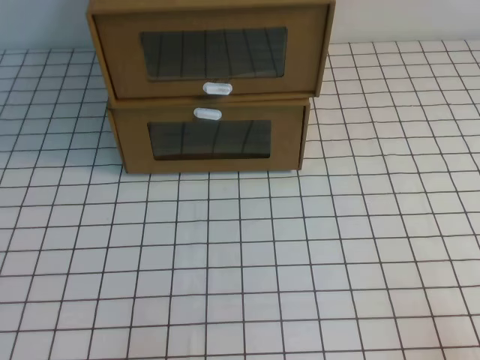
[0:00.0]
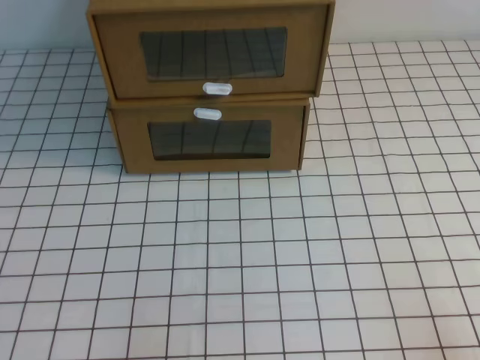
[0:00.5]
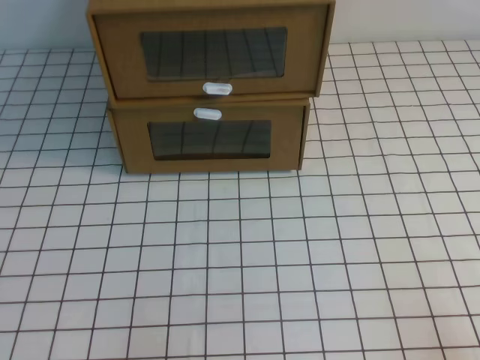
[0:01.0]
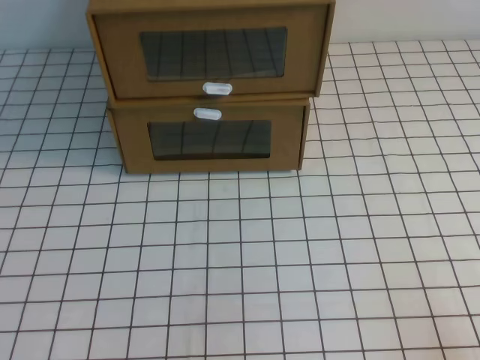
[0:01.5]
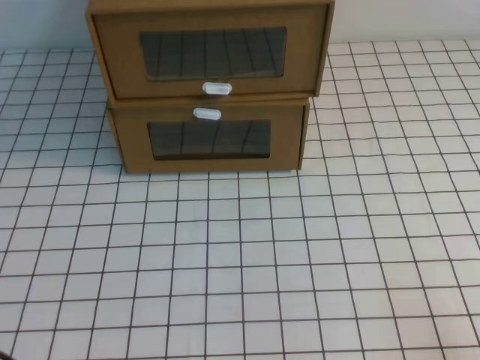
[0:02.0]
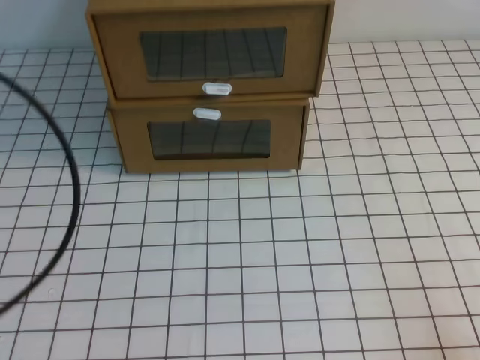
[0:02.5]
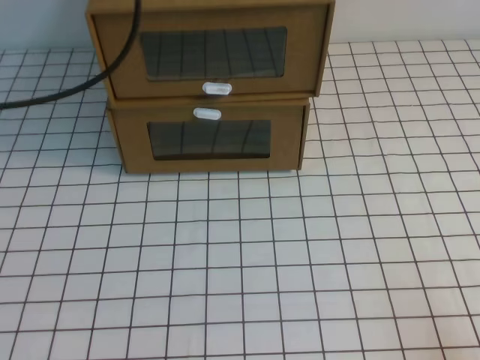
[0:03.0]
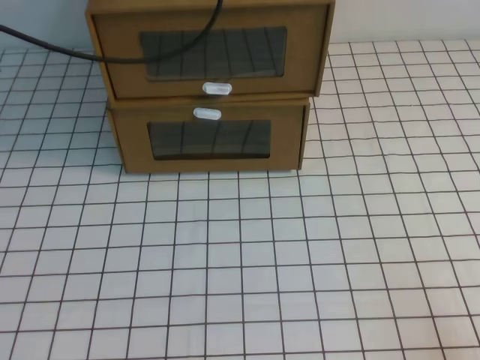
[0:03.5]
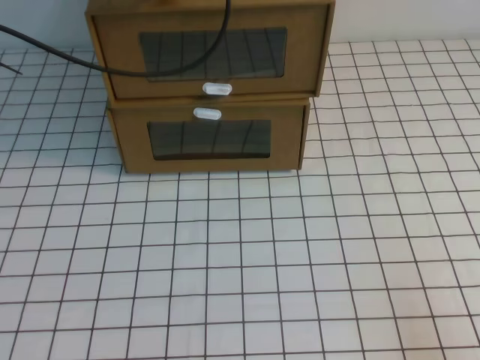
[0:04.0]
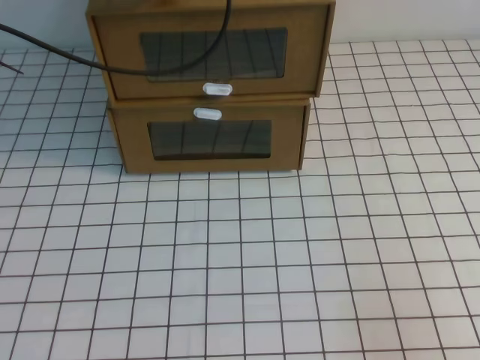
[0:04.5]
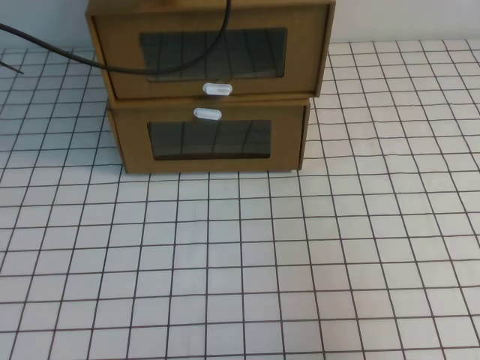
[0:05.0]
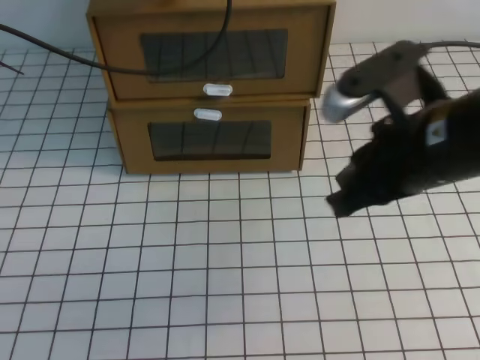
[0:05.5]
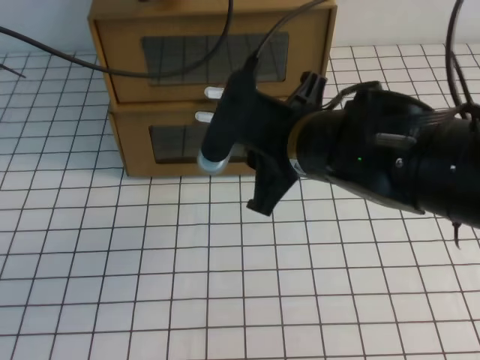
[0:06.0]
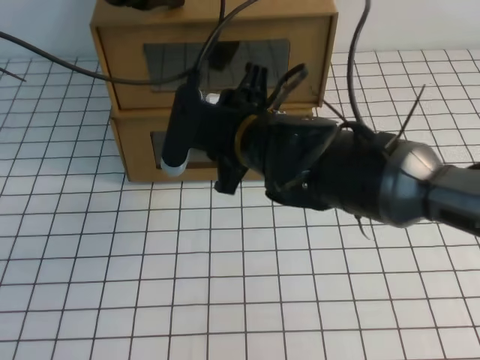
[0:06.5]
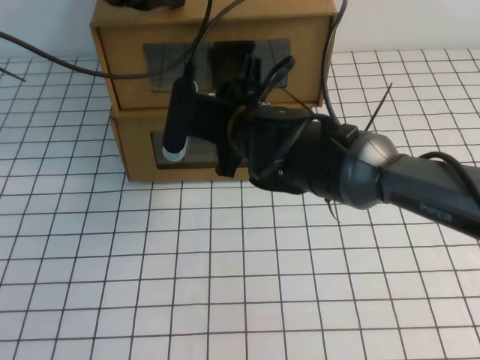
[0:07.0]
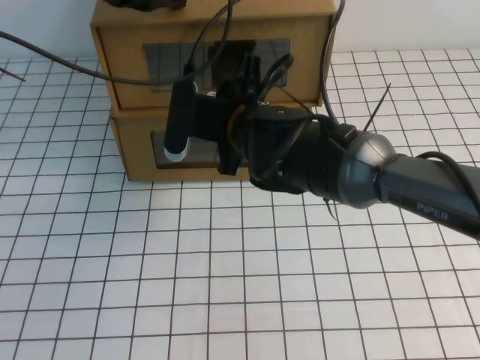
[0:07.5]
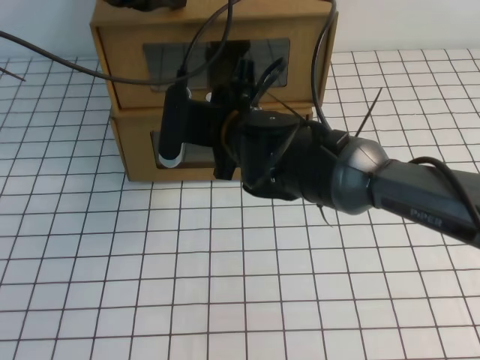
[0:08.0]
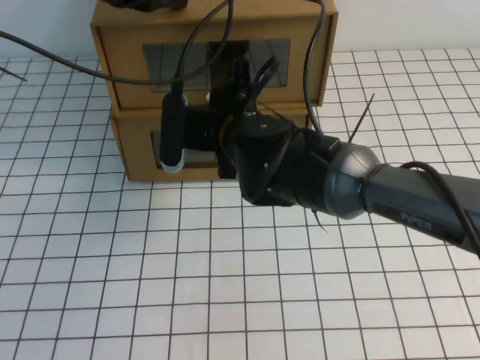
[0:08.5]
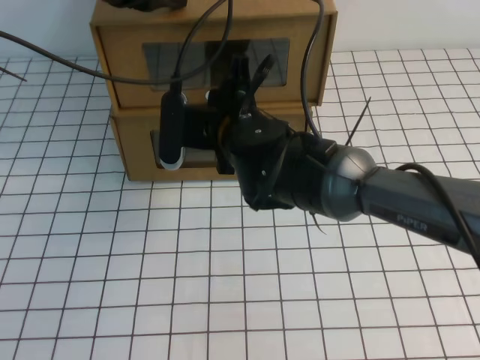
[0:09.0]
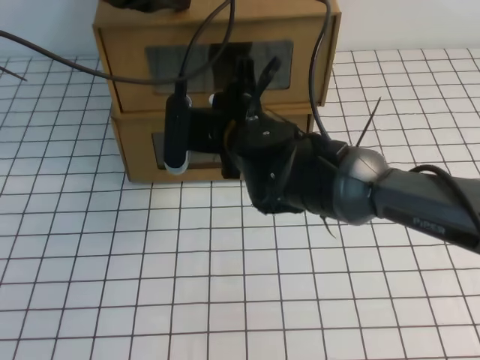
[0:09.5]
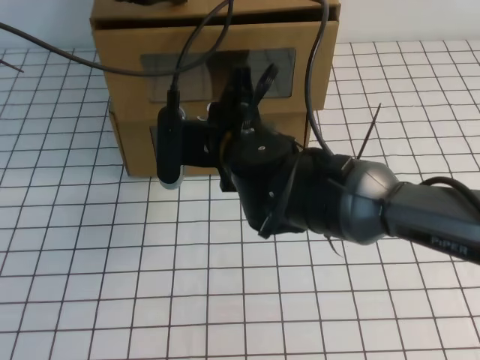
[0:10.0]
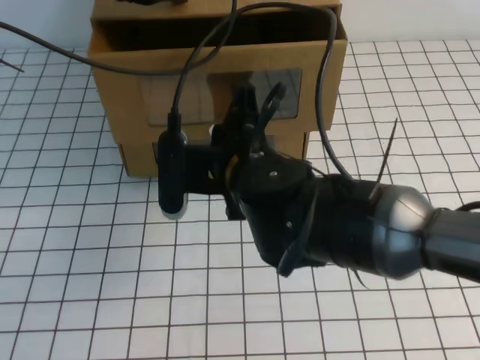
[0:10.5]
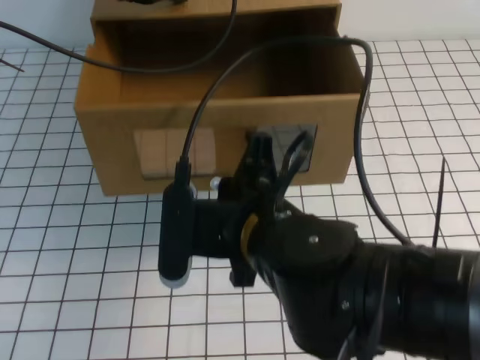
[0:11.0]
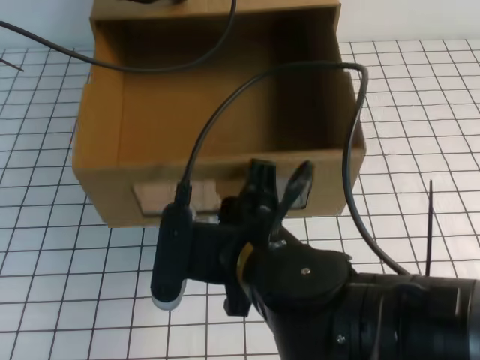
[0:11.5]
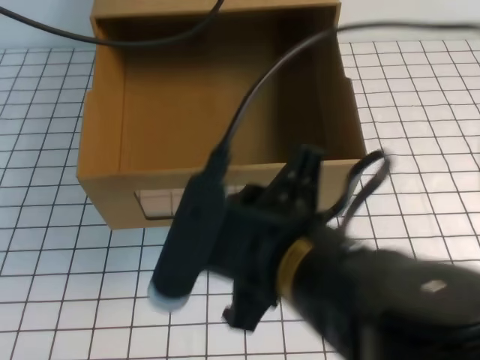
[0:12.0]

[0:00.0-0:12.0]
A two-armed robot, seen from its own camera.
Task of the whole recording: open the shoebox on the white tablecloth.
2.0 to 4.0 s: The left gripper is displaced forward and upward by about 40 cm.
4.0 to 6.0 s: The right gripper heads to the left, forward and upward, covering some 35 cm, and opens.
6.0 to 8.0 s: The right gripper shifts some 10 cm forward and to the left, and opens up.
8.0 to 10.0 s: The right gripper closes up.
10.0 to 12.0 s: The right gripper travels backward by roughly 15 cm, and opens its fingers; the left gripper is displaced upward by approximately 5 cm.

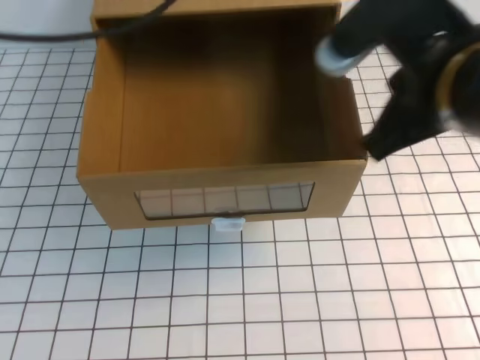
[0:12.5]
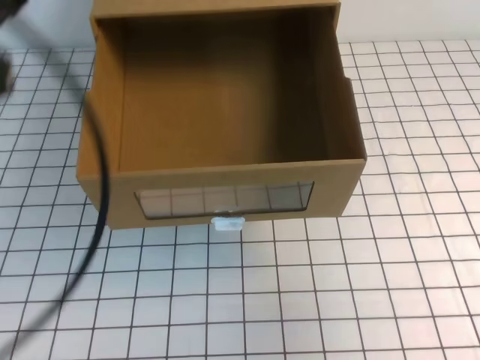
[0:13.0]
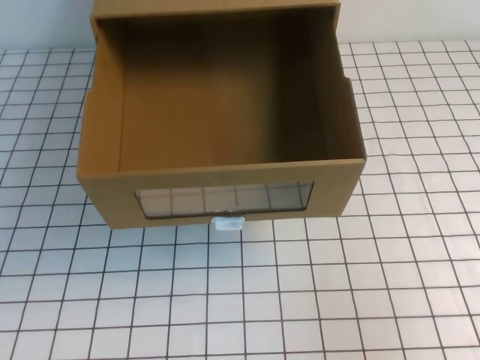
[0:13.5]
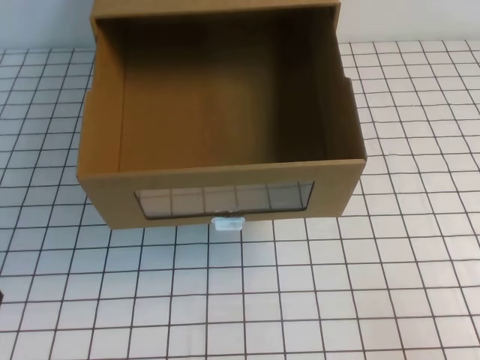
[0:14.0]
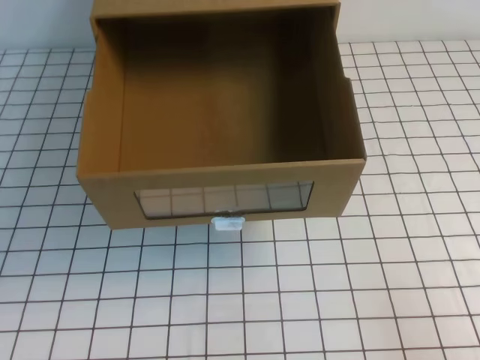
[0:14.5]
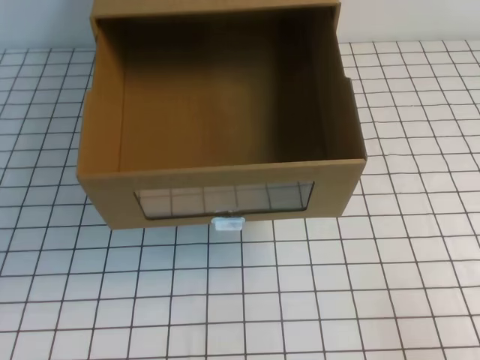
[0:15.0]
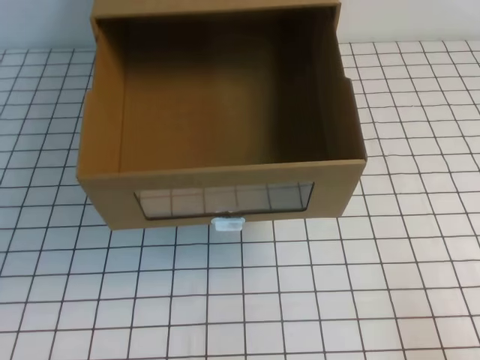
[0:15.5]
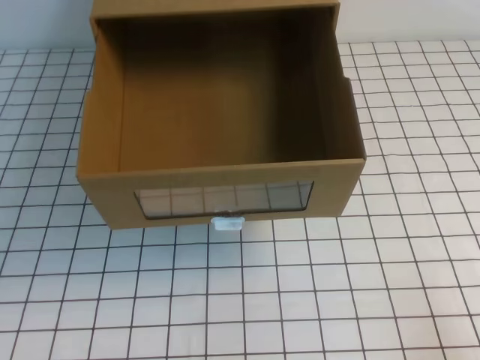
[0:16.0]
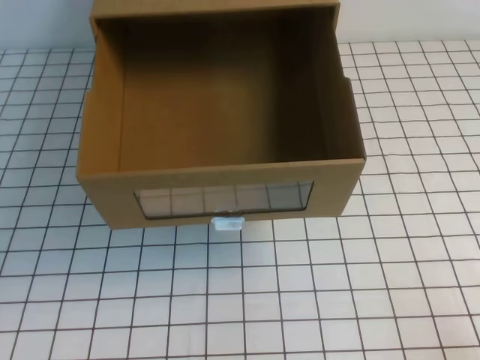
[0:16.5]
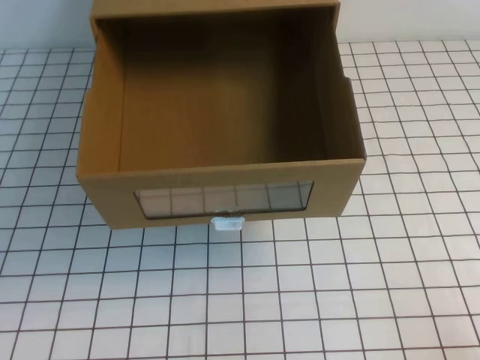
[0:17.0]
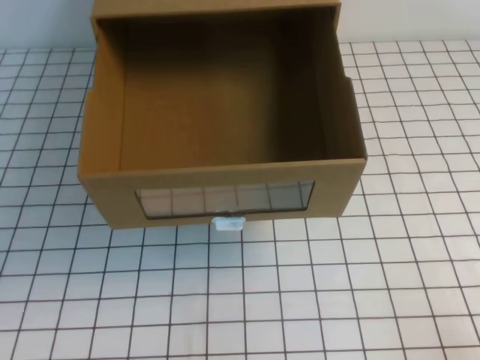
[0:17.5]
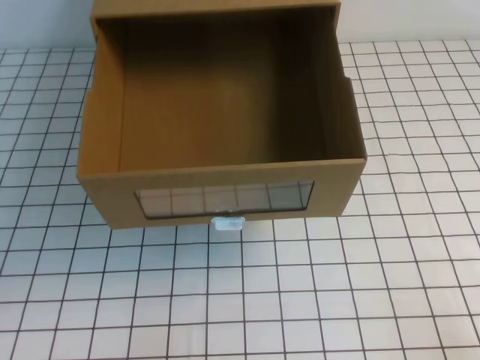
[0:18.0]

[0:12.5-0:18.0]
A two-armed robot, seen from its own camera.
Task of the whole recording: open the shoebox on the white tablecloth.
Step, 12.5 to 18.0 s: Open the shoe box.
12.5 to 14.5 s: The right gripper travels to the right, downward and backward by about 30 cm. Meanwhile the left gripper shifts roughly 40 cm downward and backward.

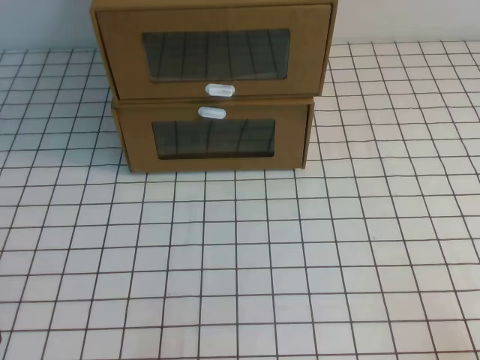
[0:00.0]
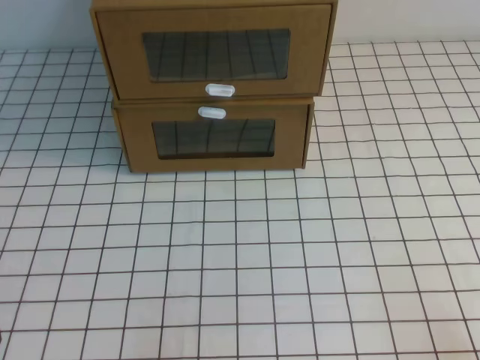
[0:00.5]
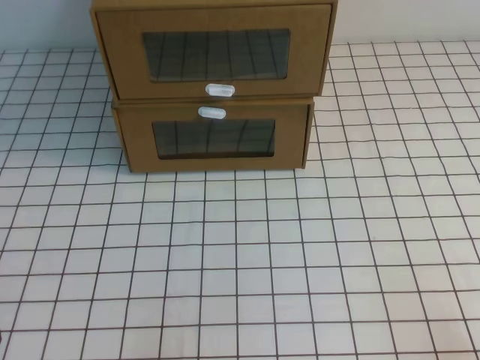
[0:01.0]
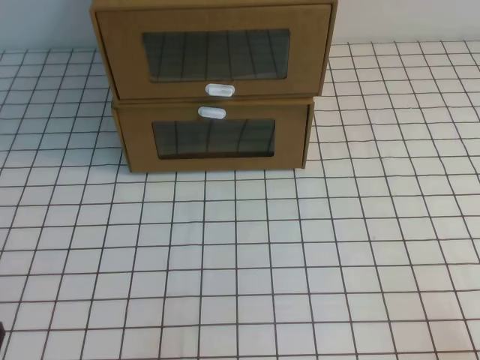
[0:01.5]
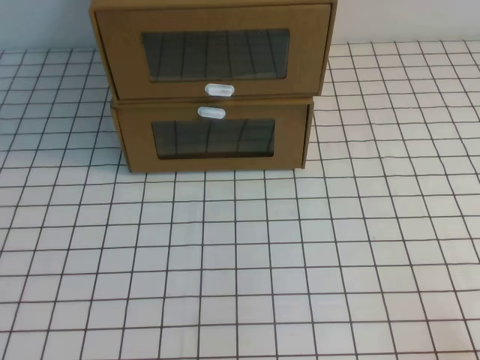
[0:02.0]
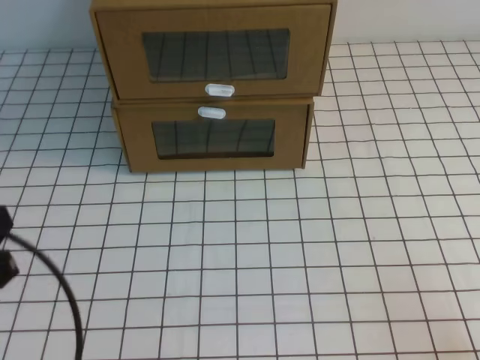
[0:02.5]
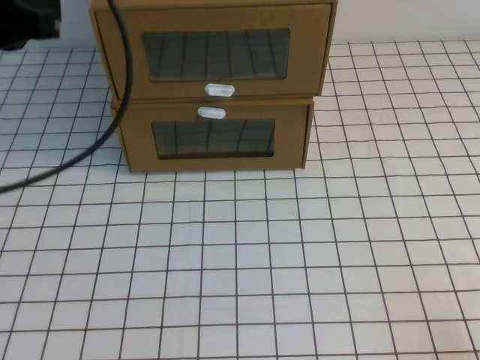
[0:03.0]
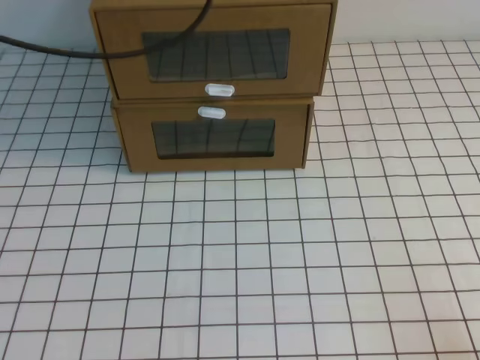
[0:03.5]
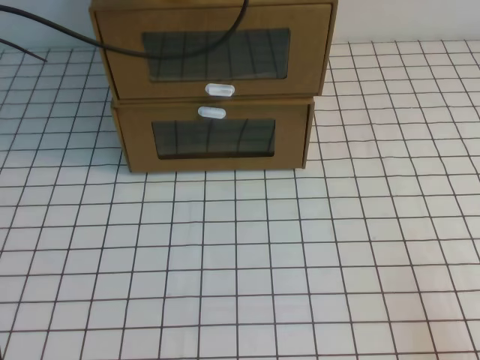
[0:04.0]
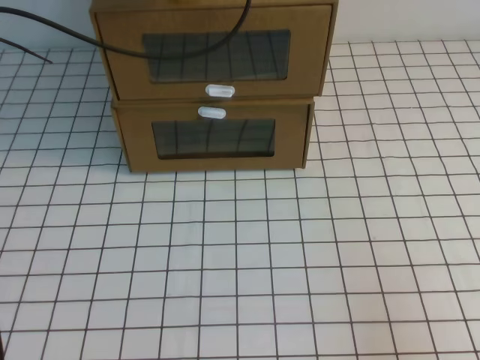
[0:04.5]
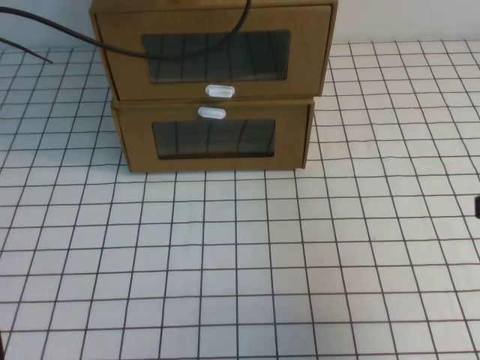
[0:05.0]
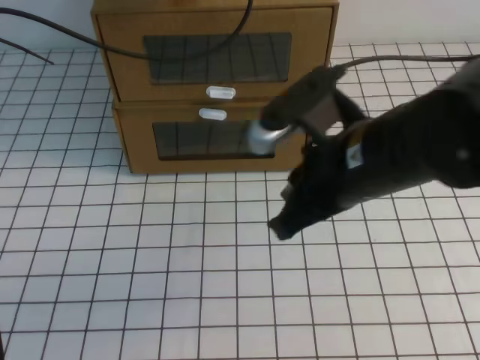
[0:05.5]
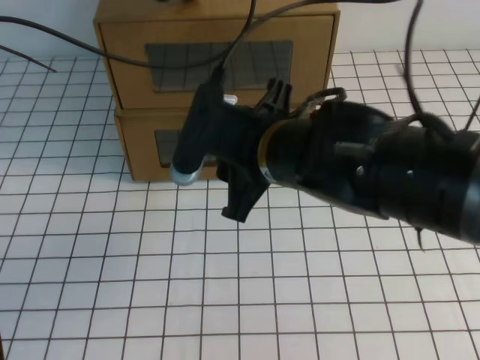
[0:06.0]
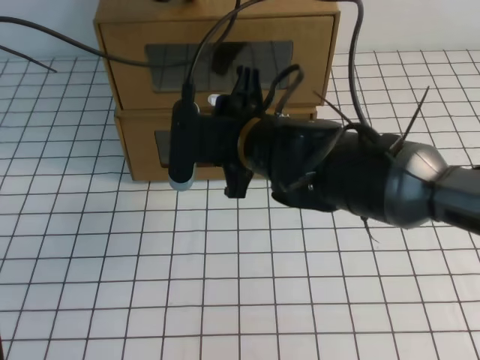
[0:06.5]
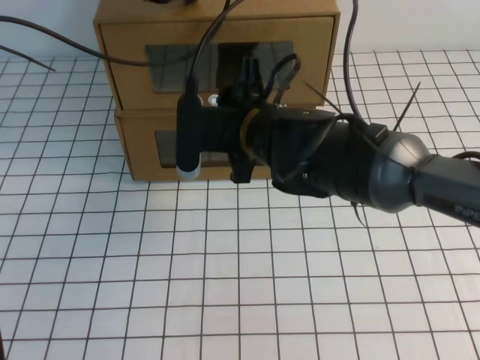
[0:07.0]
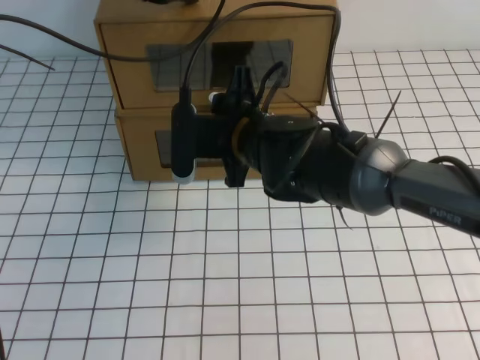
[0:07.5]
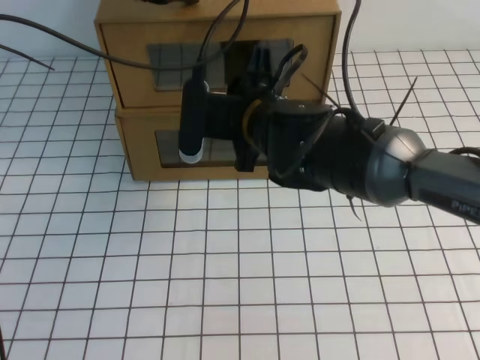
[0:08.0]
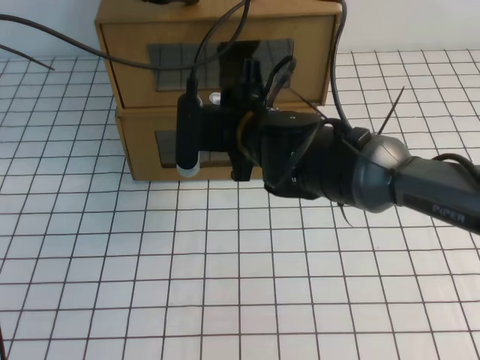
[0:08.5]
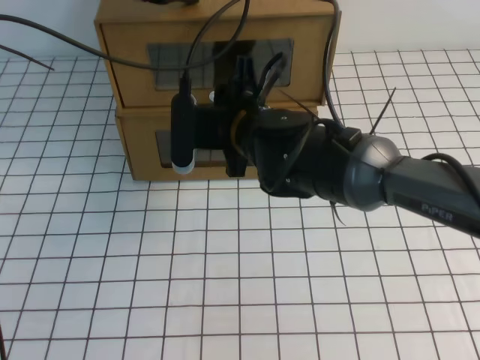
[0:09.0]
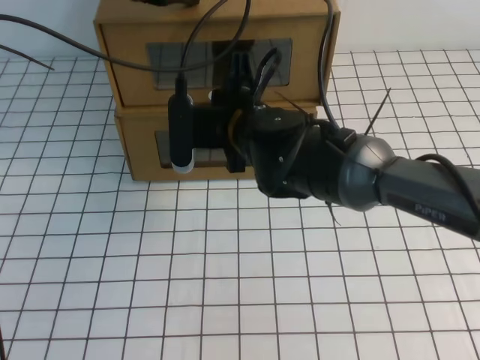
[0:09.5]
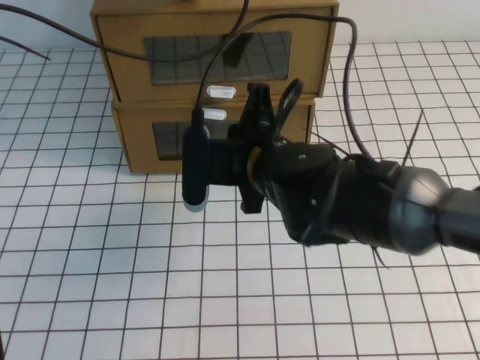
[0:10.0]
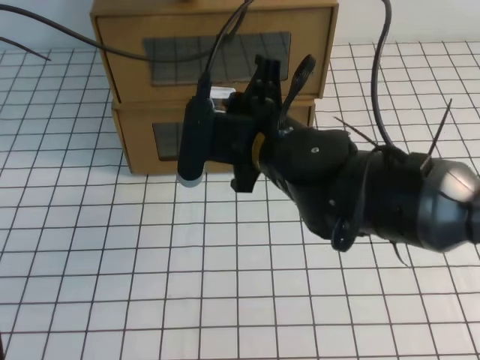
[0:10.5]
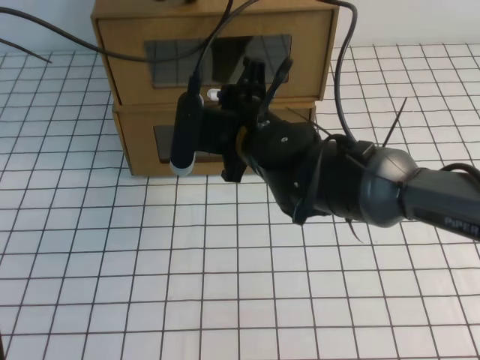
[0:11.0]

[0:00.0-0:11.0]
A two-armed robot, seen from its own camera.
Task of the whole recording: open the shoebox on the white tablecloth.
2.0 to 3.5 s: The left gripper shifts about 40 cm forward and upward.
3.5 to 5.5 s: The right gripper goes about 30 cm to the left, forward and upward. The left gripper shifts roughly 5 cm forward.
5.5 to 7.5 s: The right gripper shifts about 20 cm to the left, forward and downward, and opens up.
7.5 to 9.0 s: The grippers stay close to where they were, moving slightly.
9.0 to 11.0 s: The right gripper closes, then reopens.
